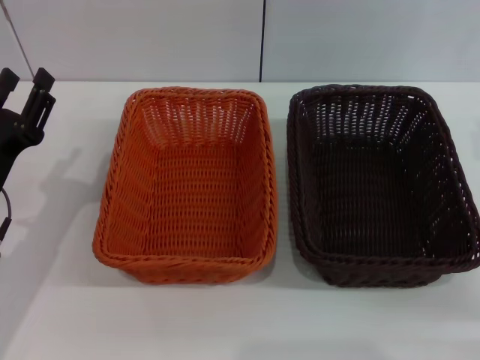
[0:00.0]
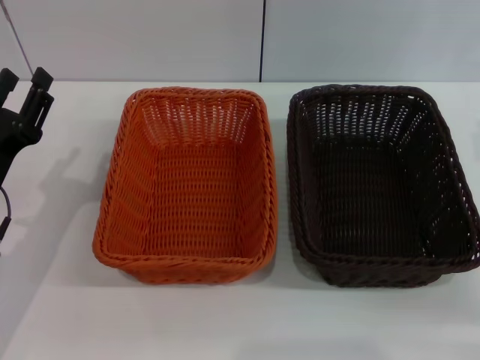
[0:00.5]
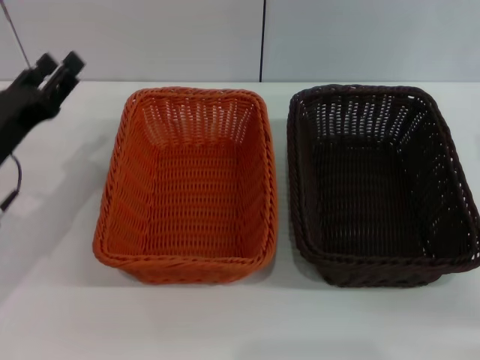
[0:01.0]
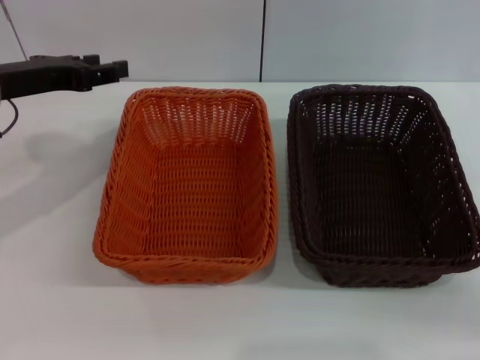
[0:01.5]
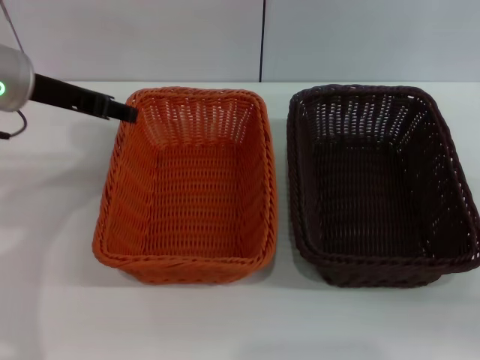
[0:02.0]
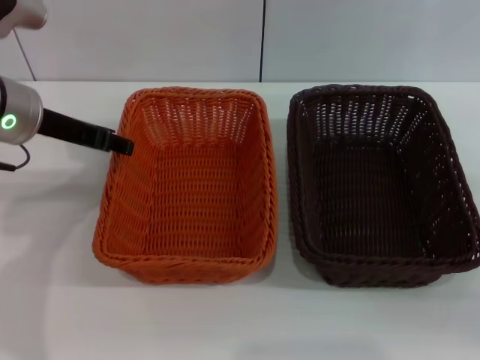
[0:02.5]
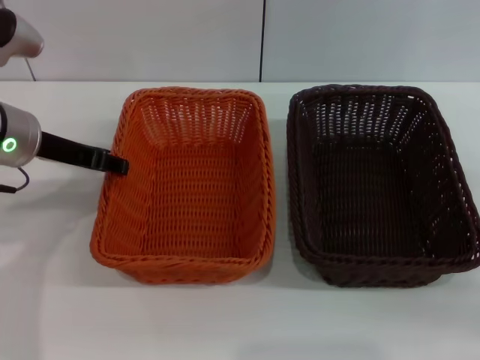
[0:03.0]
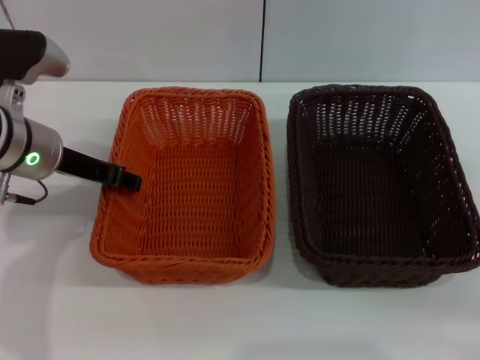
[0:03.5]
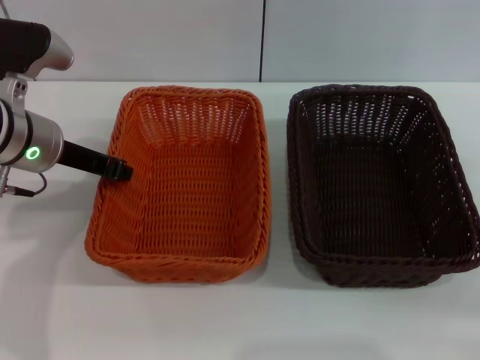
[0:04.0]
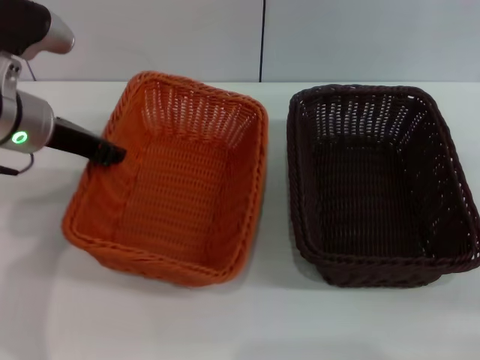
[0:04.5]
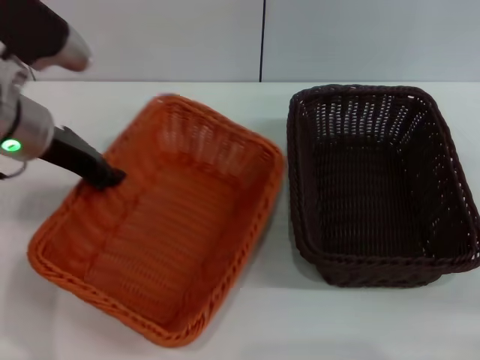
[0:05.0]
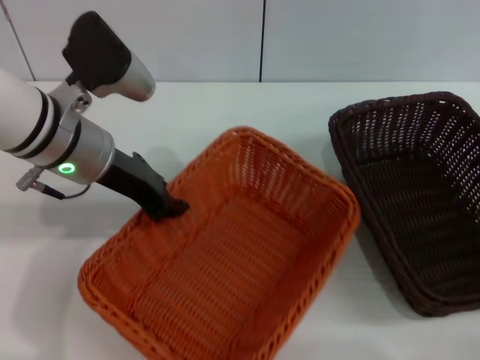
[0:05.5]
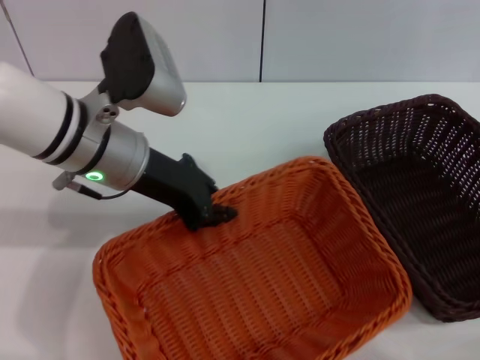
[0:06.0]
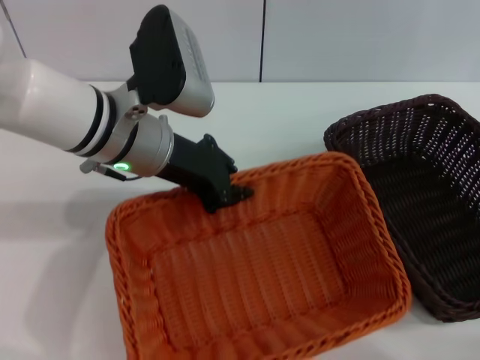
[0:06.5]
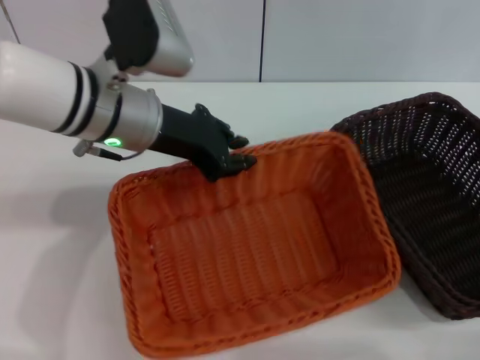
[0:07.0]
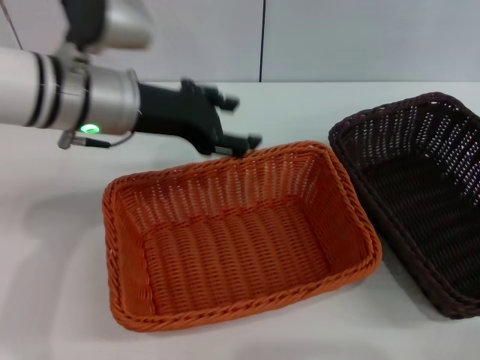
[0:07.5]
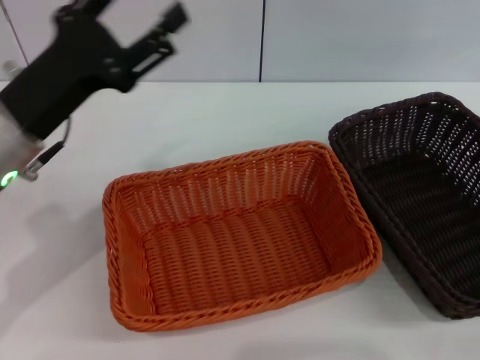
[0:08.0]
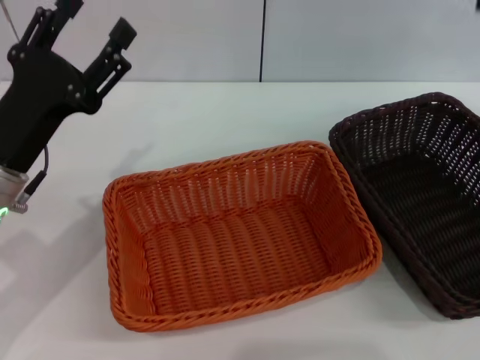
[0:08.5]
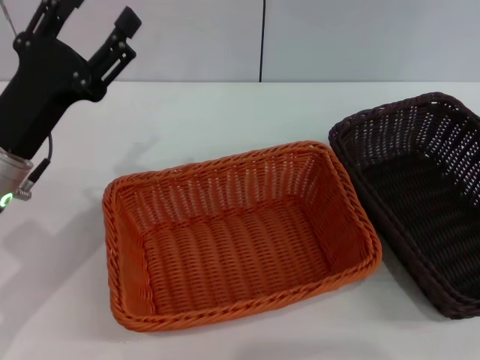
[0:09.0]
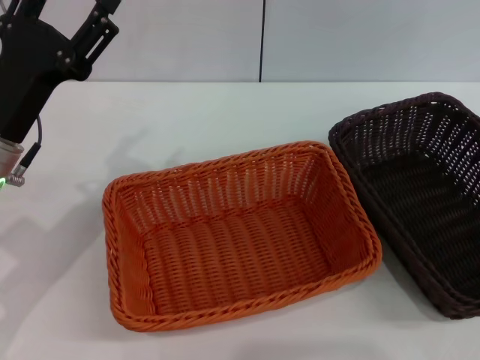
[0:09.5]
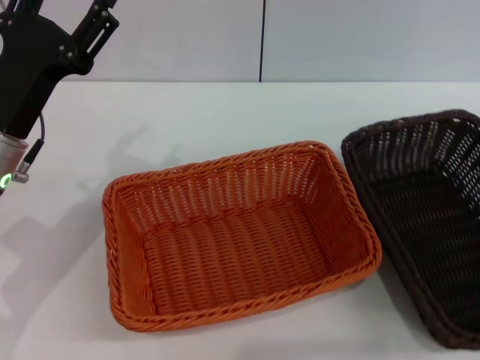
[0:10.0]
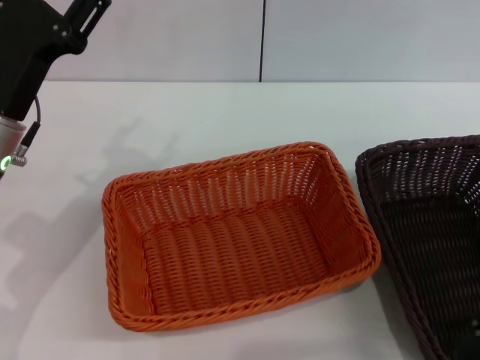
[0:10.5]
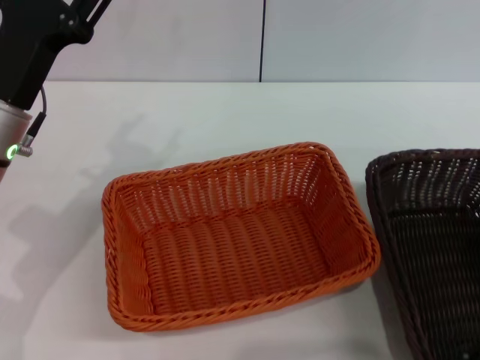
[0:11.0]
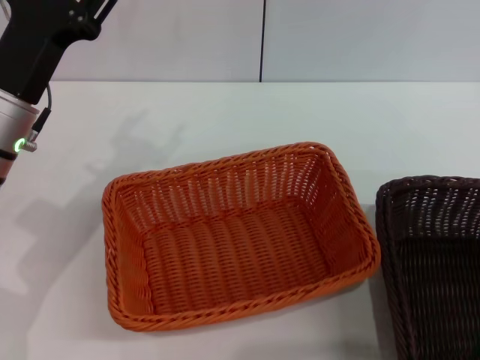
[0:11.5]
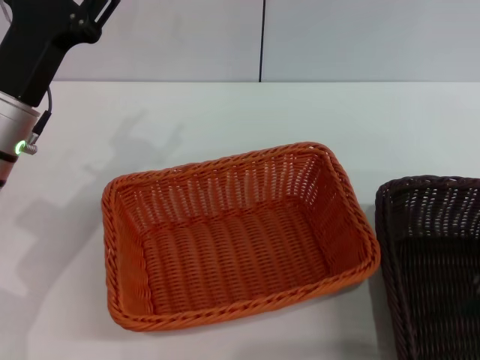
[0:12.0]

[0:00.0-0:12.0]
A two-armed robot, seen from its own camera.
Step, 0:00.0 to 0:04.0: Pick up the light basket with the left gripper.
Step, 0:04.5 to 0:07.0: Place the light basket in the center of view with the left gripper.
0:00.0 to 0:02.0: The left gripper is displaced upward and forward by about 20 cm.
0:02.0 to 0:04.0: The left gripper goes roughly 5 cm downward, and closes.
0:04.0 to 0:06.0: The left gripper travels to the right by some 10 cm.
0:06.0 to 0:08.0: The left gripper shifts some 10 cm to the left and backward, and opens; the right gripper heads upward, covering some 5 cm.
0:08.0 to 0:10.0: The right gripper moves backward, approximately 5 cm.

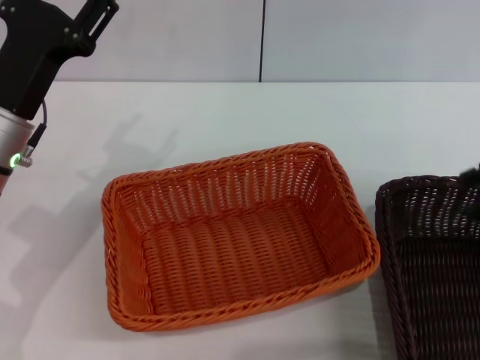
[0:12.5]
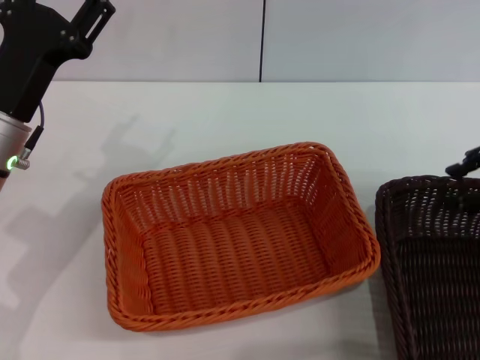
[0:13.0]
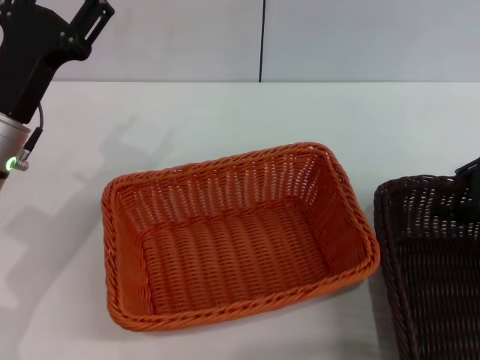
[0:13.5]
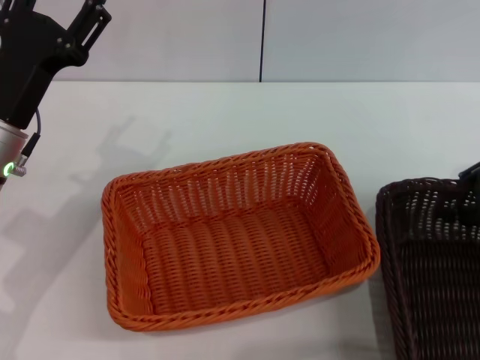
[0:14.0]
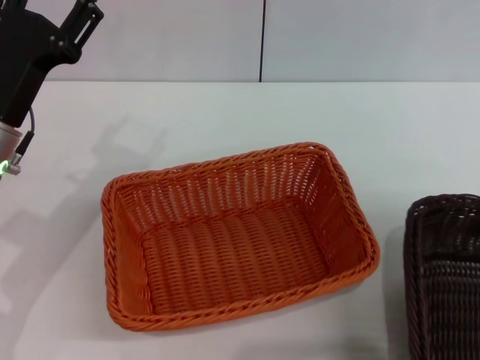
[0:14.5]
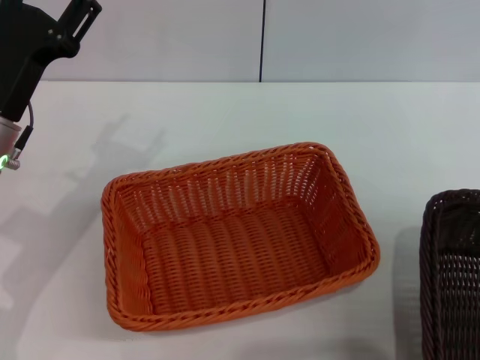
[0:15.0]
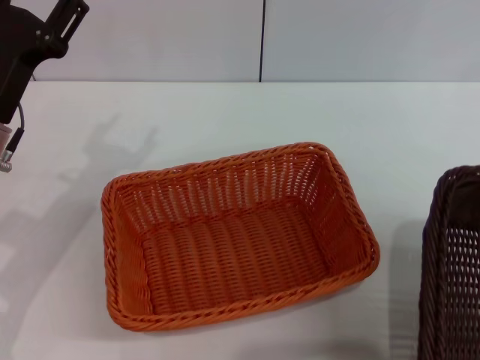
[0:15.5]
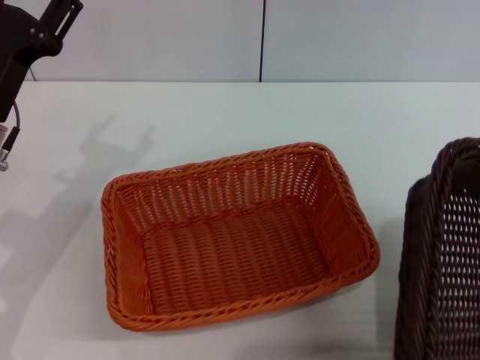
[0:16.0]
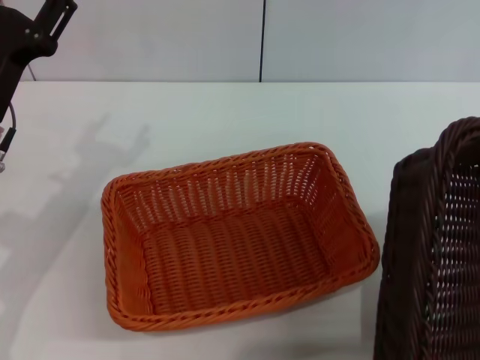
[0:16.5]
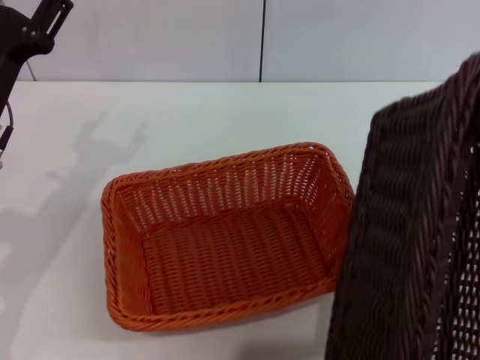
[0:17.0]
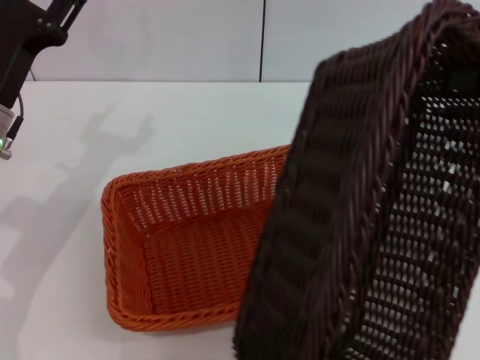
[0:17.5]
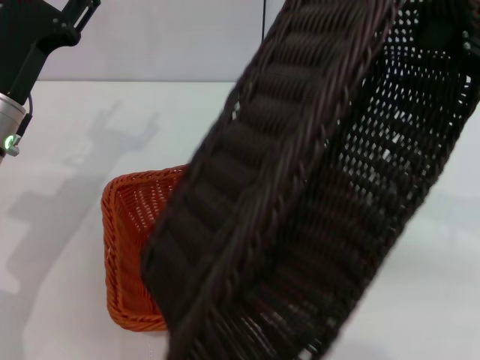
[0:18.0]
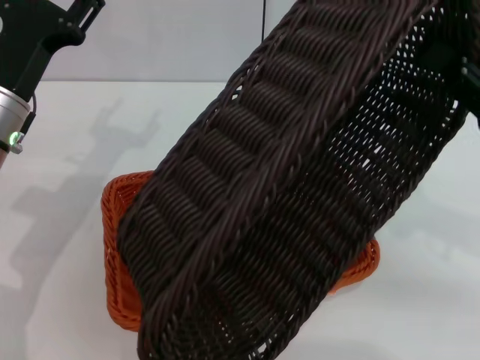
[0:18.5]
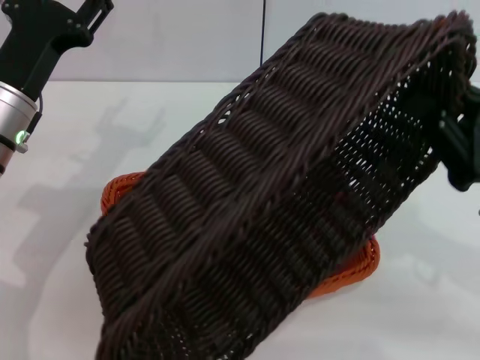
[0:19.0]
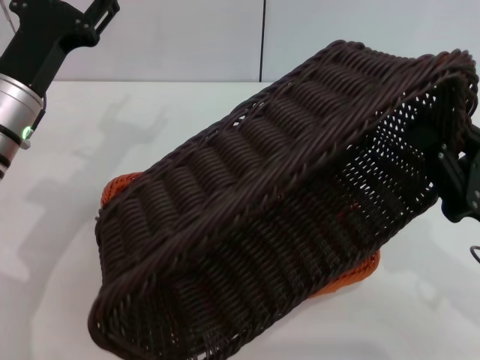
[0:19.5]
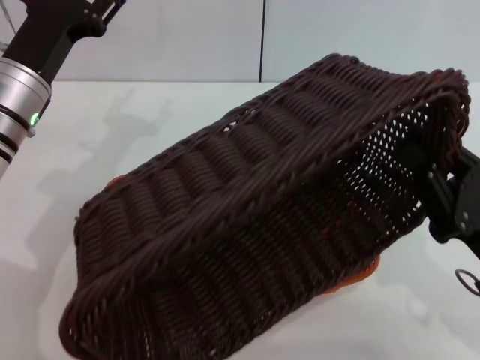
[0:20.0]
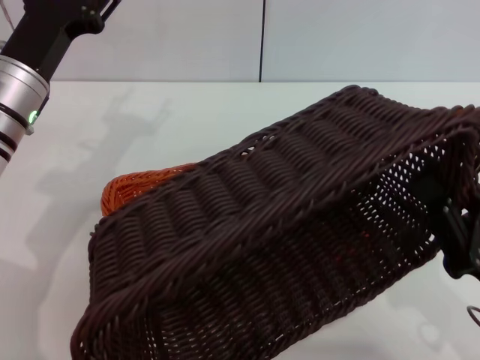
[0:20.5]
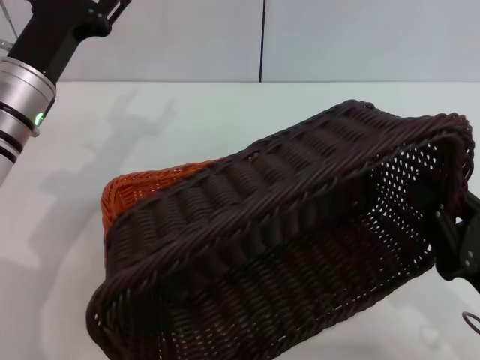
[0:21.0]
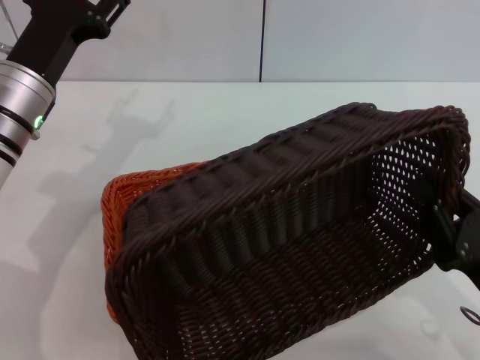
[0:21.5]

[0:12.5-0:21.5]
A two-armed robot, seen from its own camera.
0:12.5 to 0:14.5: The right gripper closes its fingers.
0:14.5 to 0:17.0: The right gripper heads upward, covering some 10 cm.
0:17.0 to 0:19.5: The right gripper moves downward and to the left, about 20 cm.
0:19.5 to 0:21.5: The right gripper moves roughly 5 cm.

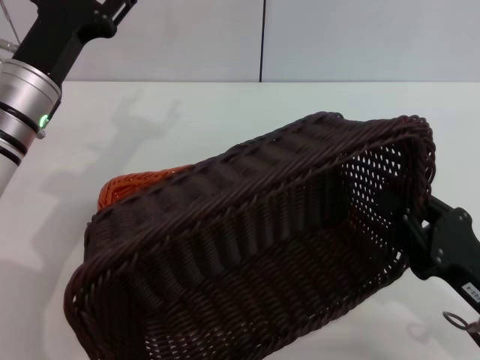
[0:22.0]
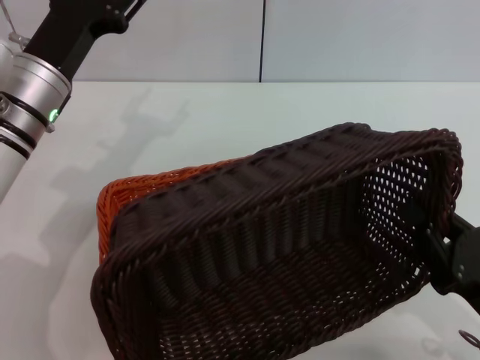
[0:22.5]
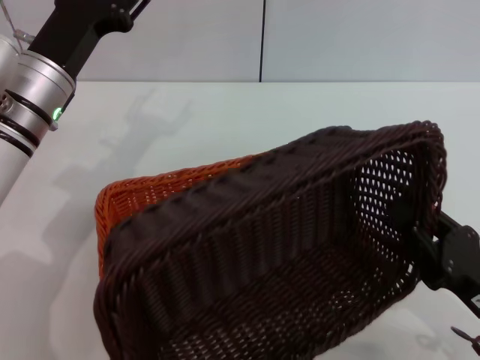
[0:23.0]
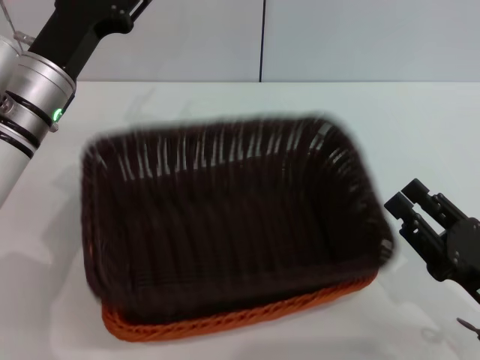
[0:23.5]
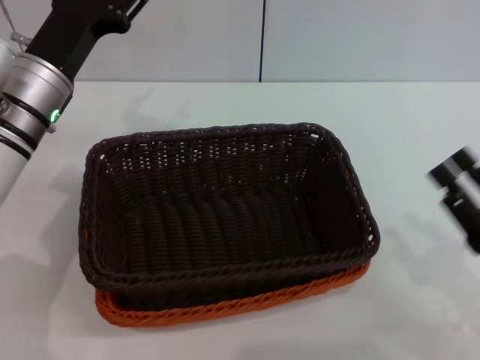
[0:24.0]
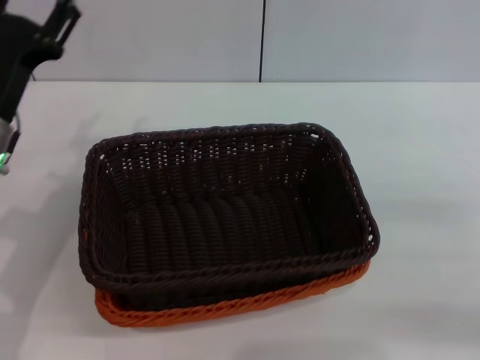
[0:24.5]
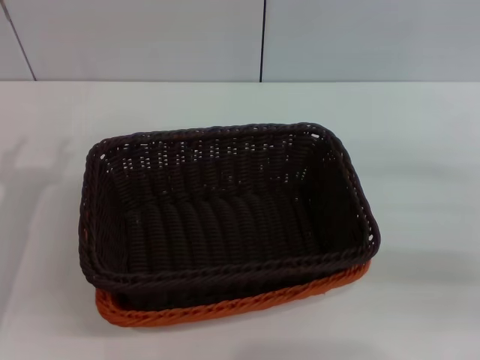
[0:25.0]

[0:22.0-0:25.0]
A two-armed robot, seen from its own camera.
0:22.0 to 0:23.5: The right gripper opens up.
0:23.5 to 0:25.0: The right gripper goes about 15 cm forward, to the right and upward. The left gripper moves backward and to the left, about 15 cm.
